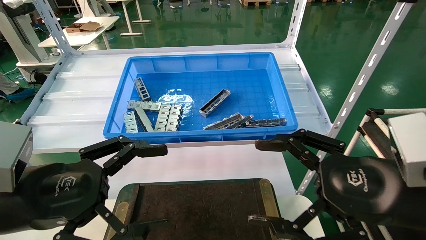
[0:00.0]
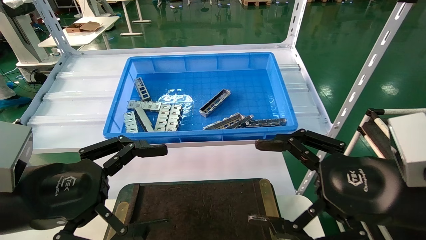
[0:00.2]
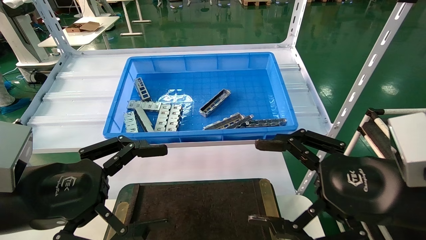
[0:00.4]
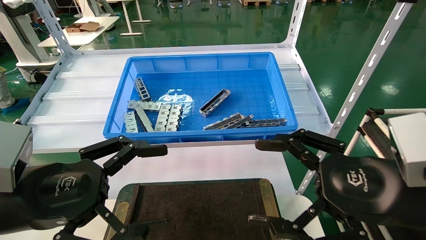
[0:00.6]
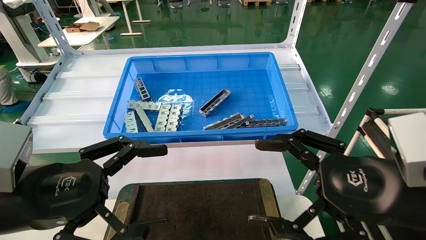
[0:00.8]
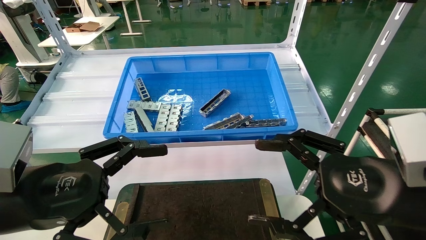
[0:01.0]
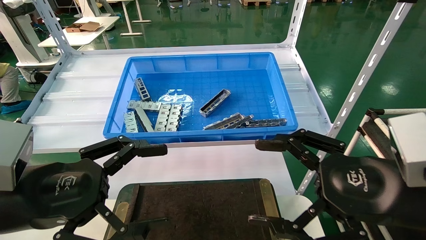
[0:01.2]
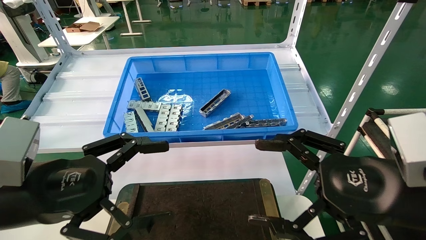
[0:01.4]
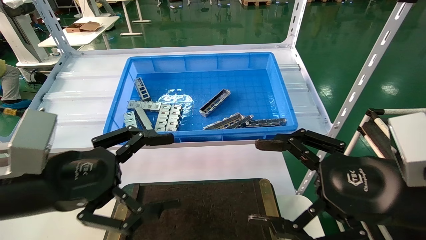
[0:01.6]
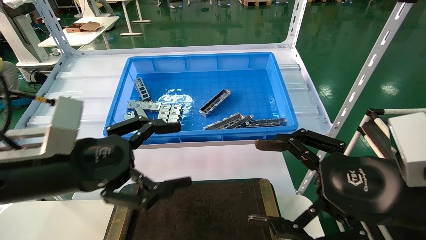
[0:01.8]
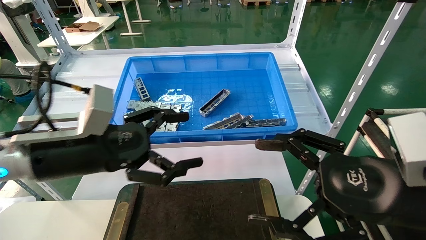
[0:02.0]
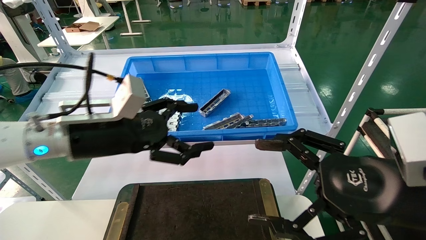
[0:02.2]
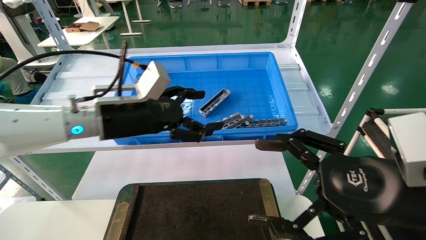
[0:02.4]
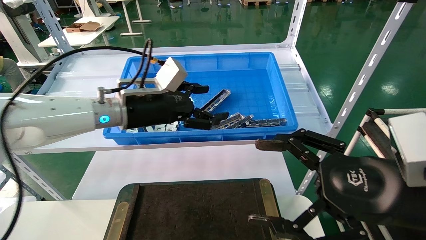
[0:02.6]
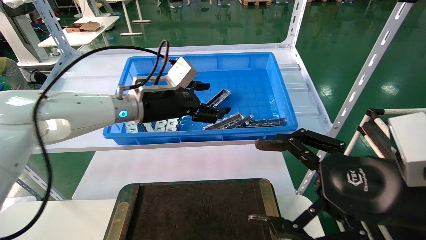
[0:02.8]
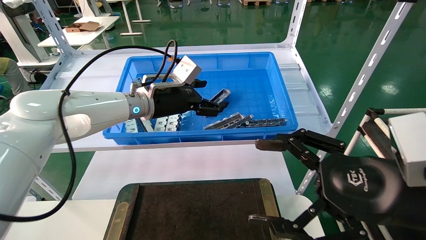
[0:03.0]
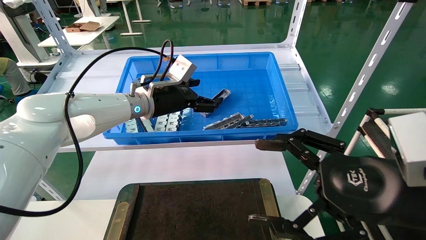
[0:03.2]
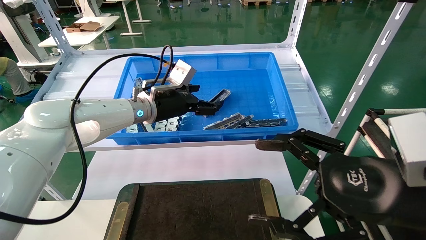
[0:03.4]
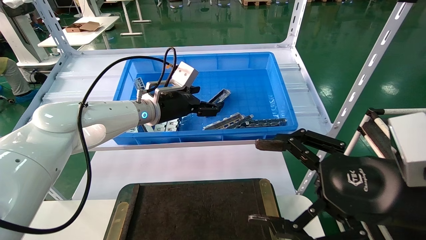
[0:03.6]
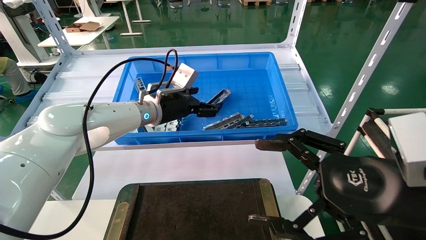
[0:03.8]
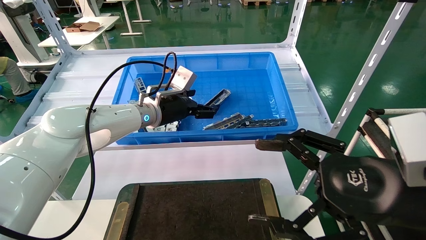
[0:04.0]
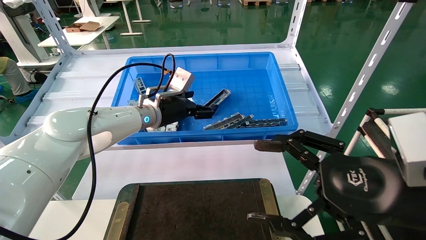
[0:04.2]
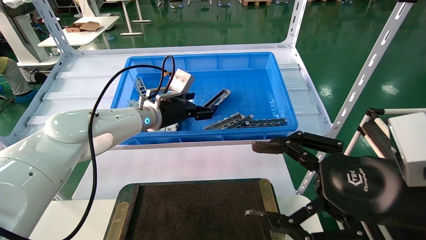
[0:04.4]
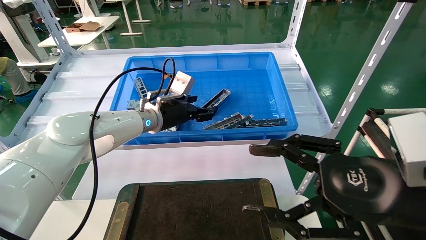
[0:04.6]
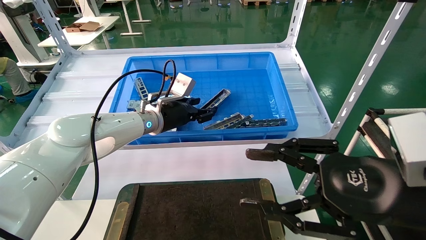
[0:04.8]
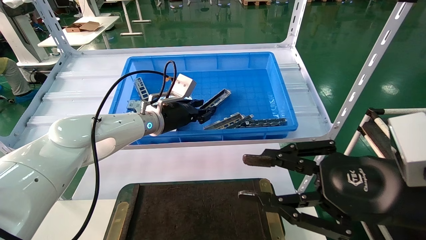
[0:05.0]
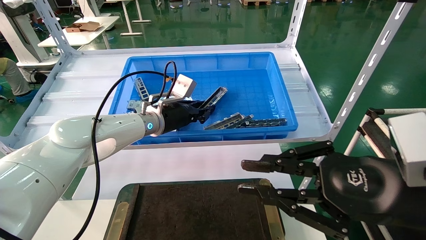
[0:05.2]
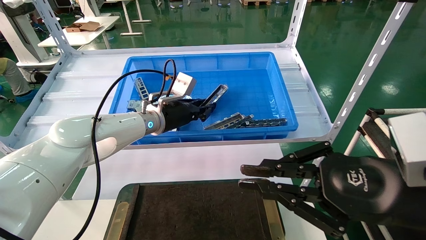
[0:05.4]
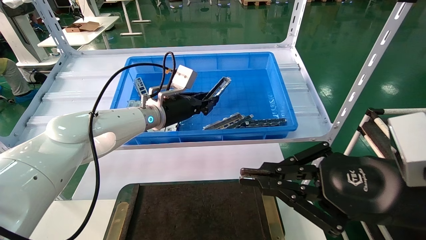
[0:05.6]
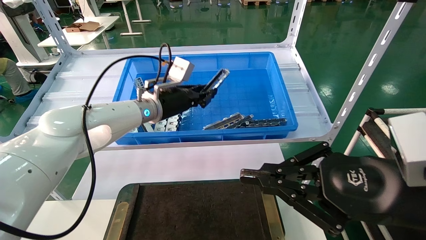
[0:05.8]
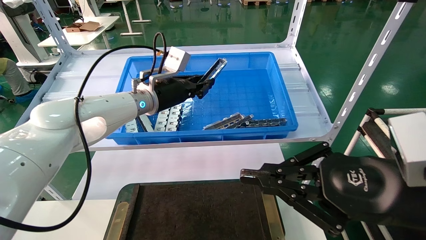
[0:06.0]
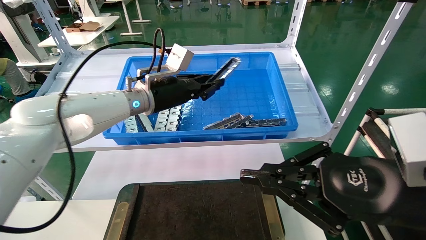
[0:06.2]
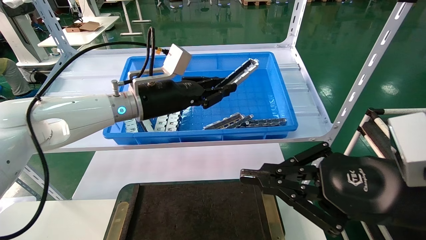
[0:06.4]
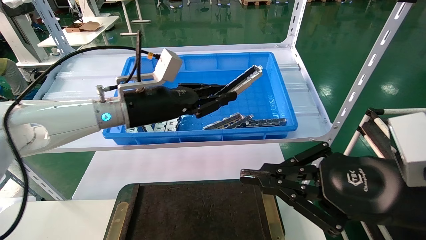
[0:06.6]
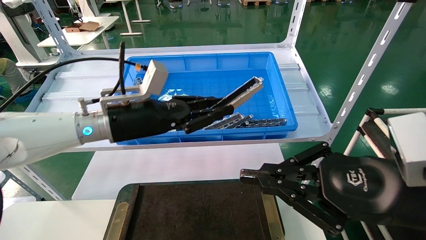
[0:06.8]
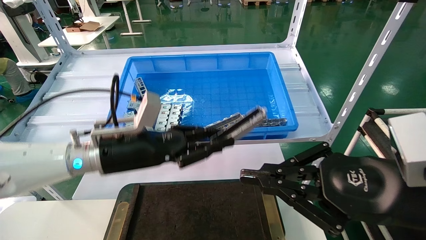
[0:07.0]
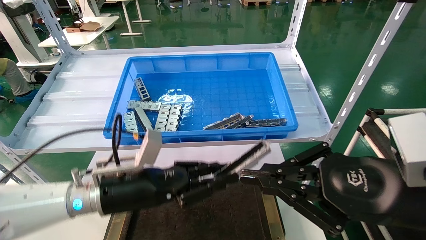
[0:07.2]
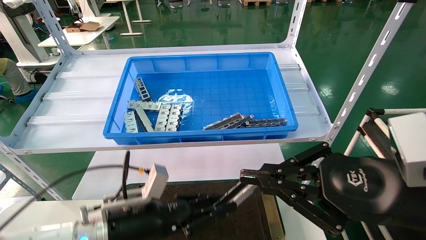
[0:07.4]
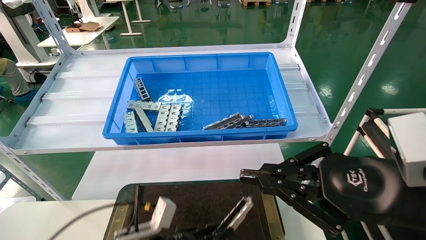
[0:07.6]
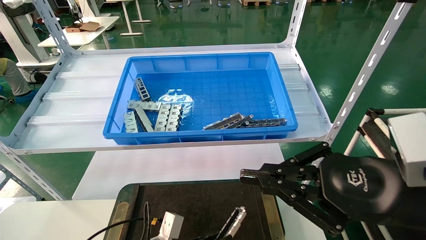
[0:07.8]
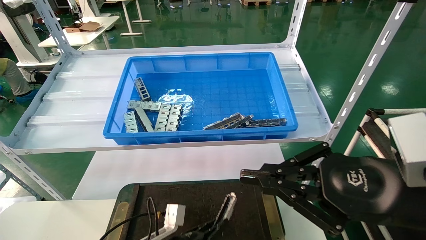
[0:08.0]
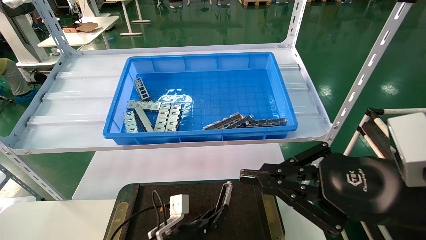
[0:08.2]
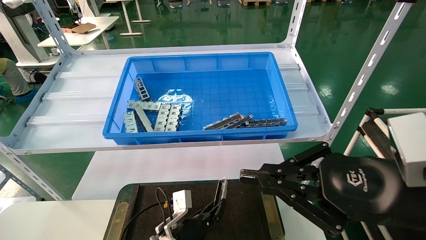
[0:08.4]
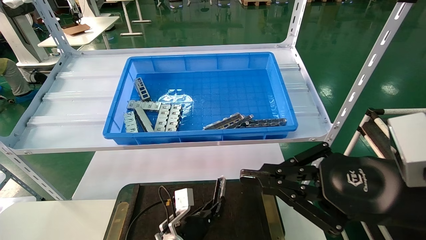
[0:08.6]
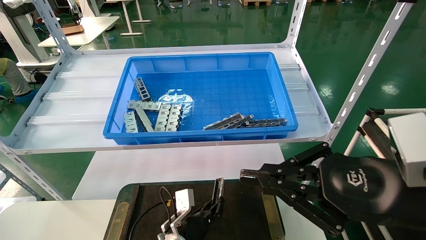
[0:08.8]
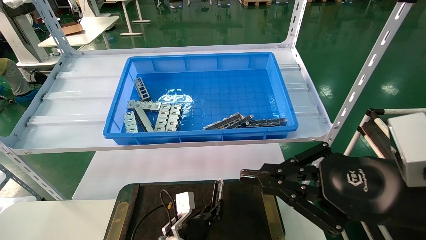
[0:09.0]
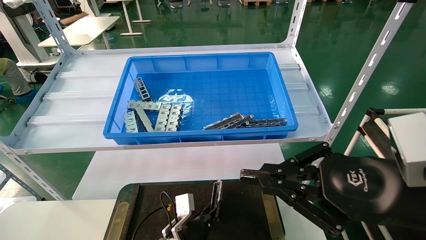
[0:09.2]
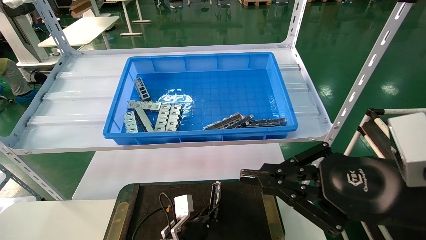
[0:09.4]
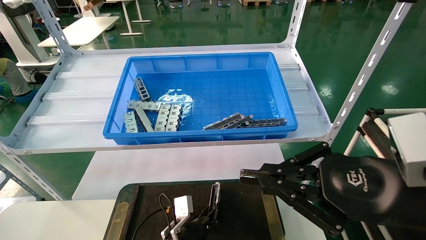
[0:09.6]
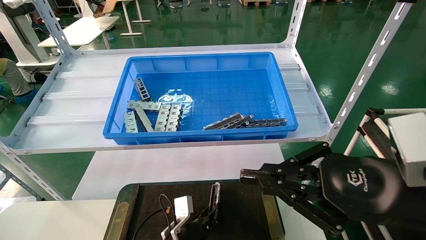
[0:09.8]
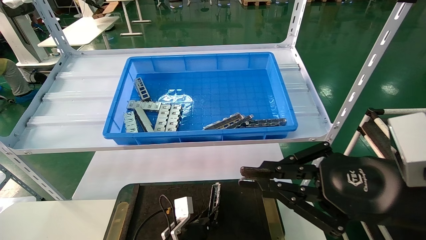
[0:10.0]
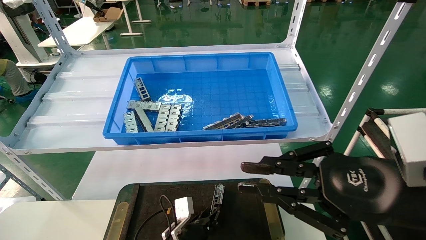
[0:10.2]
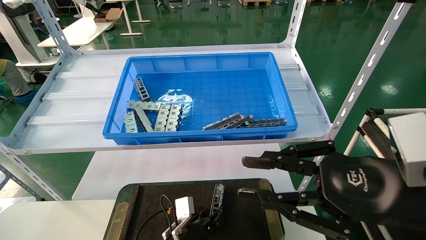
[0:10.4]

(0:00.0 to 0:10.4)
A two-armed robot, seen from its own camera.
Task of the whole recording: Grasp the part with one hand and place it on the black container.
Step, 0:01.8 - 0:05.2: Pick up the front USB bracket from the feeding area.
Step, 0:05.4 - 0:10.2: Place the front USB bracket into the box.
0:00.0 - 0:01.4: The two grippers keep their place.
0:01.4 - 0:03.0: The left gripper heads forward and to the right, covering roughly 30 cm.
0:03.0 - 0:04.4: The left gripper shifts by about 5 cm.
0:04.4 - 0:06.0: The right gripper closes its fingers, while the left gripper closes.
0:06.0 - 0:07.4: The left gripper is displaced downward and backward by roughly 25 cm.
0:07.4 - 0:09.0: The left gripper is displaced downward, to the right and forward by about 20 cm.
0:09.0 - 0:10.4: The grippers move only a little.

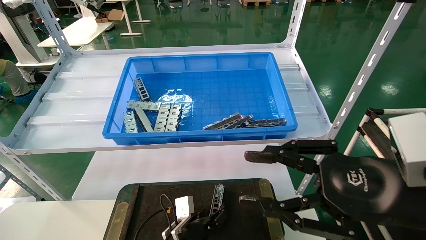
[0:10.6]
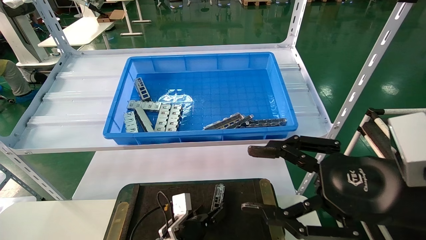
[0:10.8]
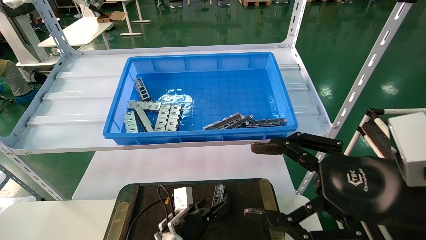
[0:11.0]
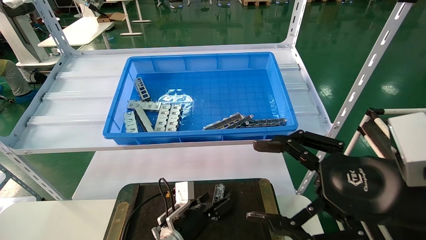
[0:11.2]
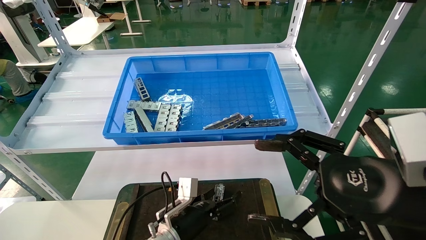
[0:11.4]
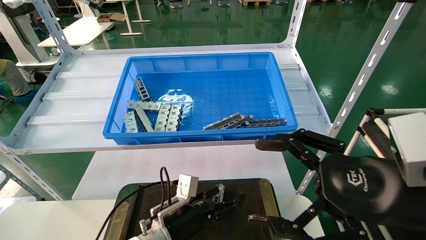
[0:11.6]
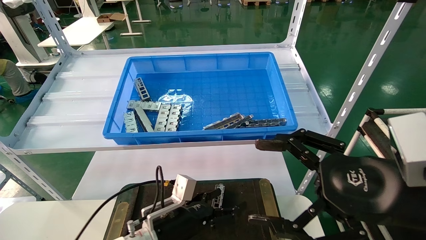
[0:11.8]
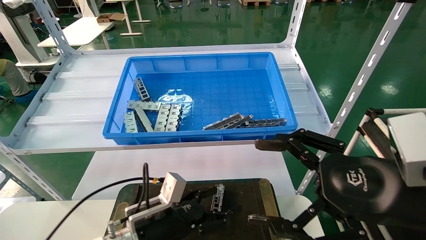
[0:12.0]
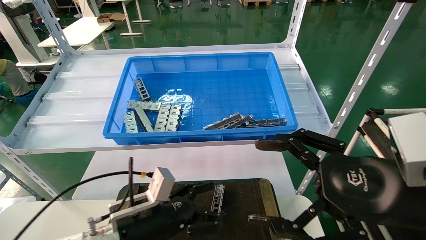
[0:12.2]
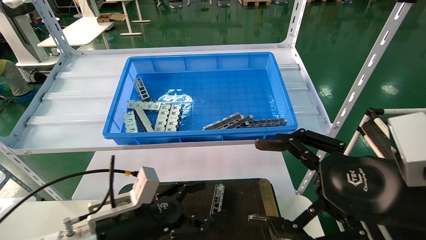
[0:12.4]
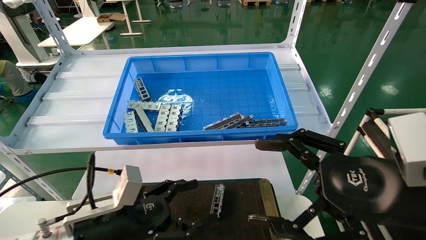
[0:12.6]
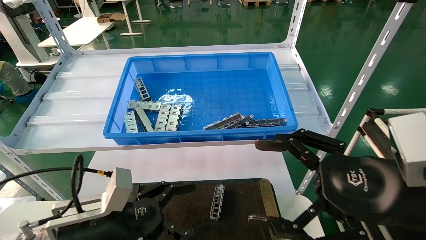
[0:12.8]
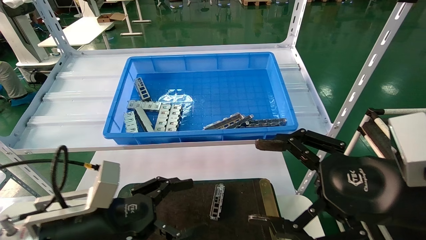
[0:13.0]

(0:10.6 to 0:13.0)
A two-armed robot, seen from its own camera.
Task of the whole recording: Grasp the part with one hand and place it on the black container.
0:10.6 - 0:11.8: The right gripper opens its fingers. Meanwhile the left gripper moves upward, about 10 cm, and opens up.
0:11.8 - 0:13.0: The left gripper moves upward, to the left and backward, approximately 20 cm.

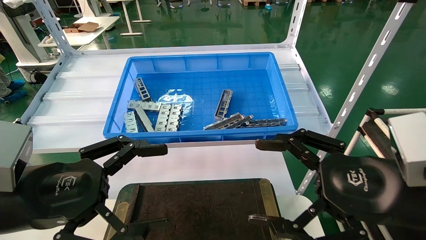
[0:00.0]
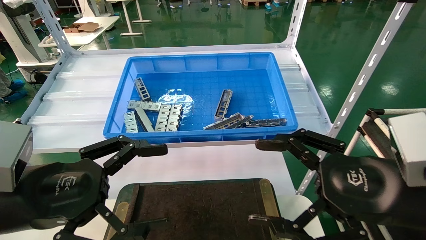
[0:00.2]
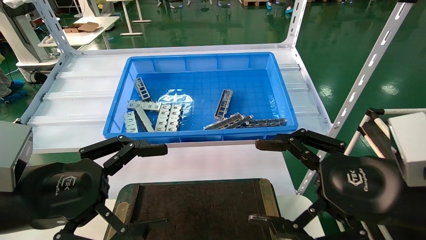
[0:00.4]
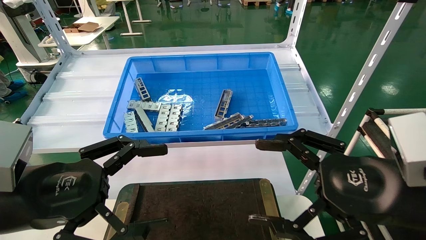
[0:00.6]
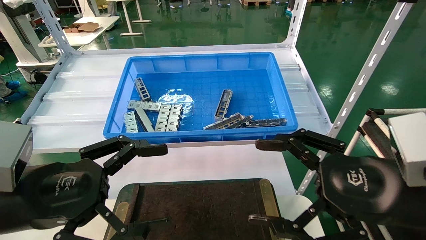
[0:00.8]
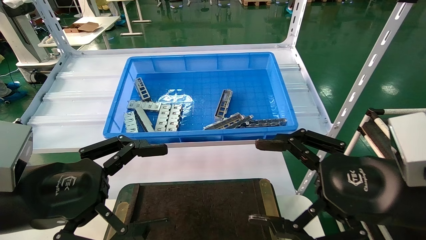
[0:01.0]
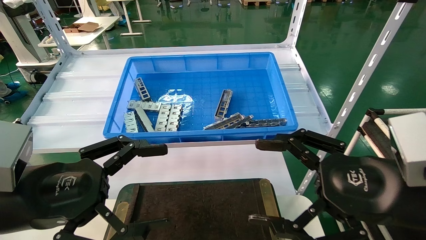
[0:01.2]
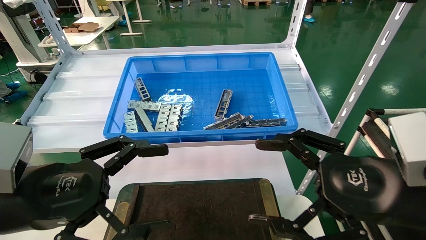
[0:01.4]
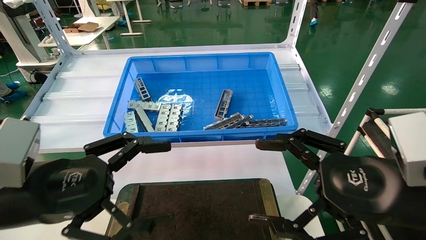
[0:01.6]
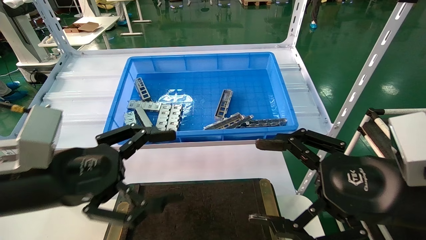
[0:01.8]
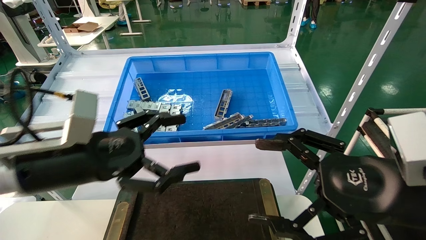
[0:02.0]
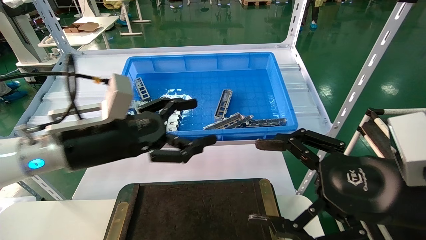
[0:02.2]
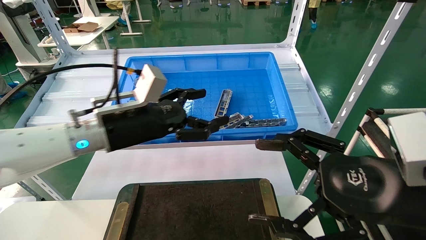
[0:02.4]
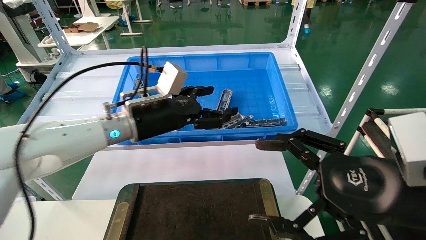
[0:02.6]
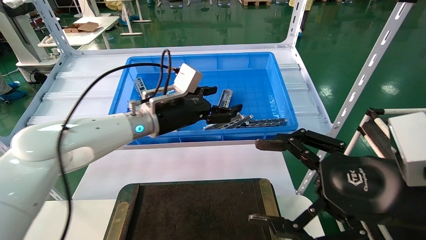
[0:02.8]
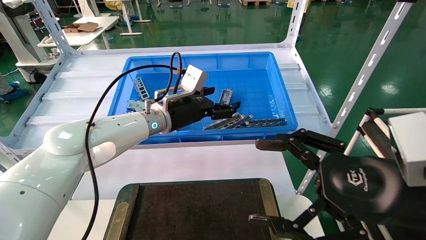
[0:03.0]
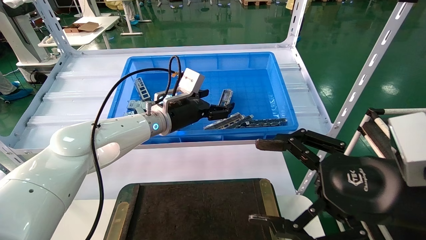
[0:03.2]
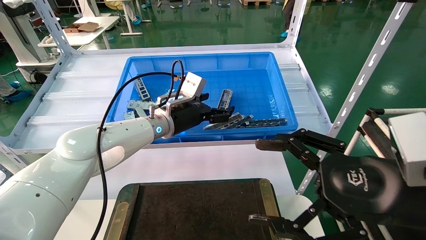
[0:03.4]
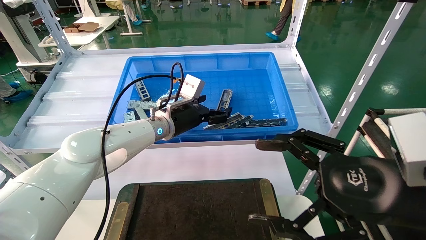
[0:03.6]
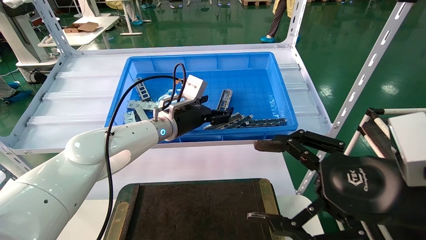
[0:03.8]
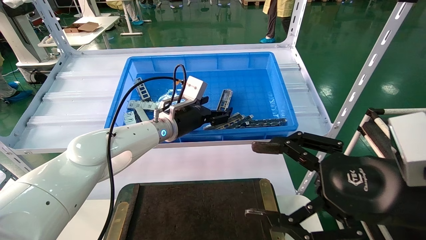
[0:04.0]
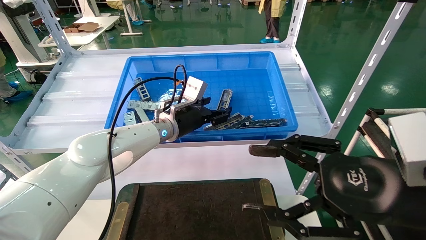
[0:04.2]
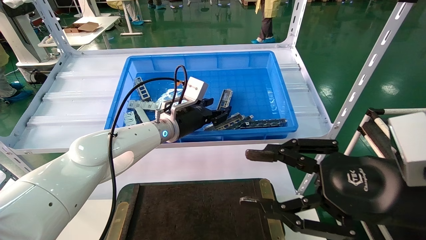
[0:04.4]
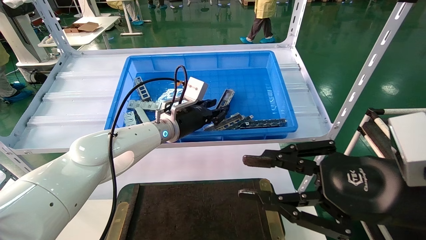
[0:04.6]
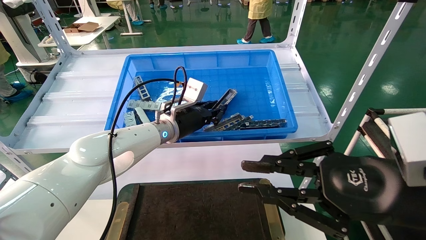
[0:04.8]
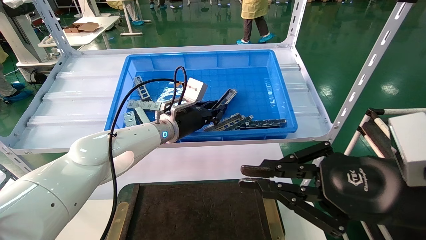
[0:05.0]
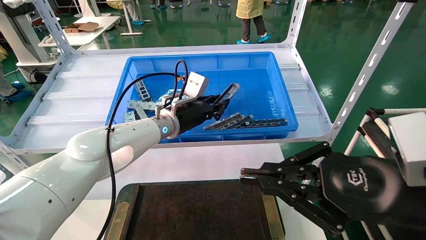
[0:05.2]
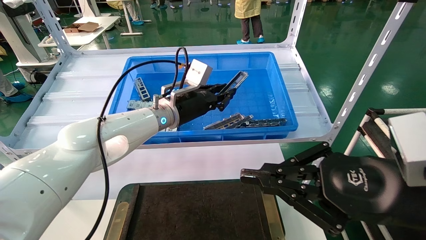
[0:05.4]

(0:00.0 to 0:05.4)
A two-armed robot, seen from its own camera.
Task of the whole recording: Grasp the part with one hand and place it on the black container.
0:00.0 - 0:01.4: The two grippers keep their place.
0:01.4 - 0:02.8: The left gripper moves forward and to the right, approximately 30 cm.
0:02.8 - 0:04.0: The left gripper ends up approximately 5 cm from where it was.
0:04.0 - 0:05.4: The right gripper closes its fingers; the left gripper closes.
